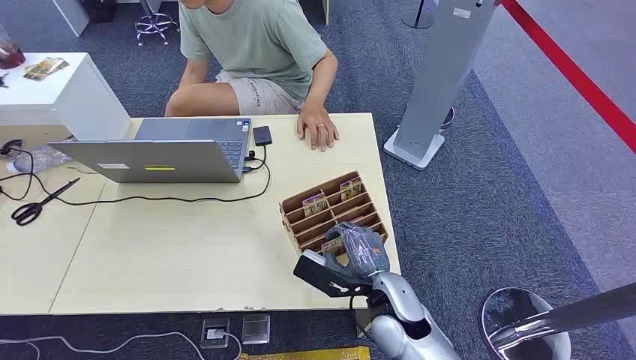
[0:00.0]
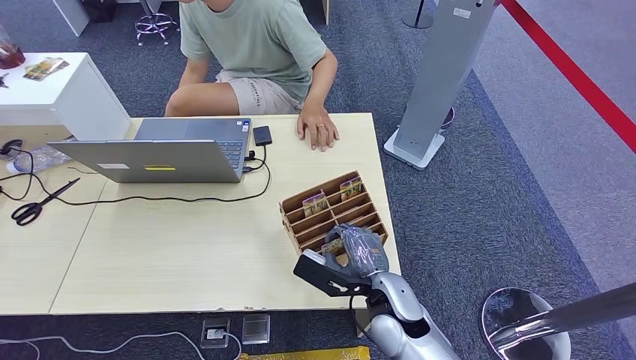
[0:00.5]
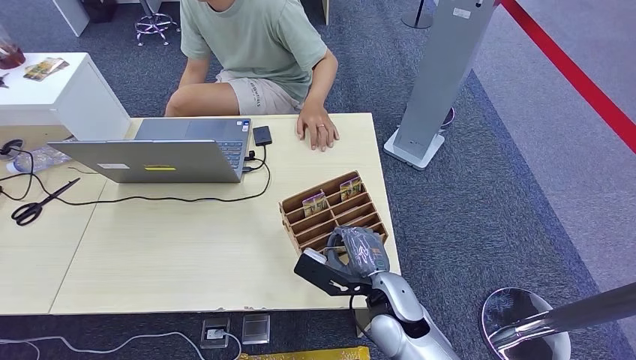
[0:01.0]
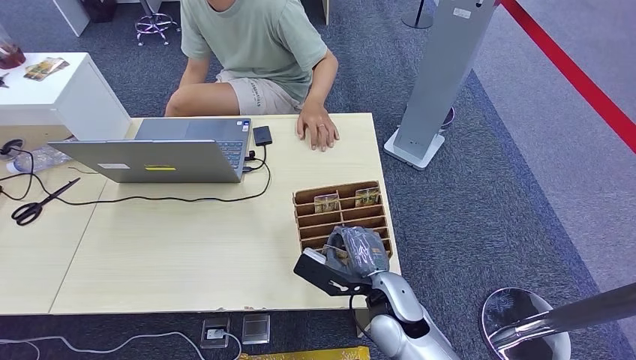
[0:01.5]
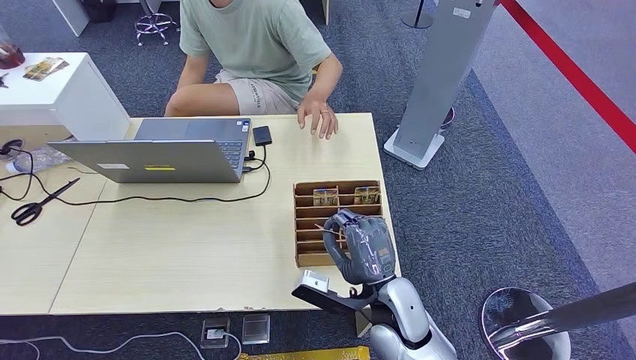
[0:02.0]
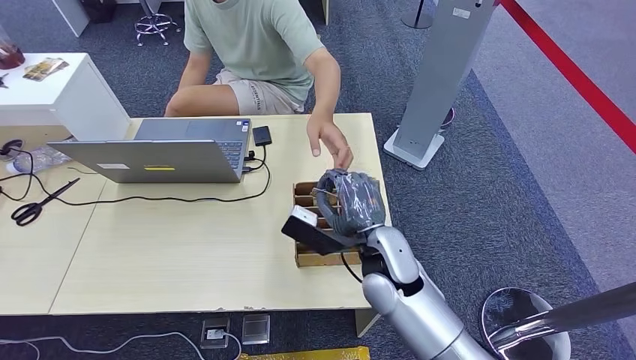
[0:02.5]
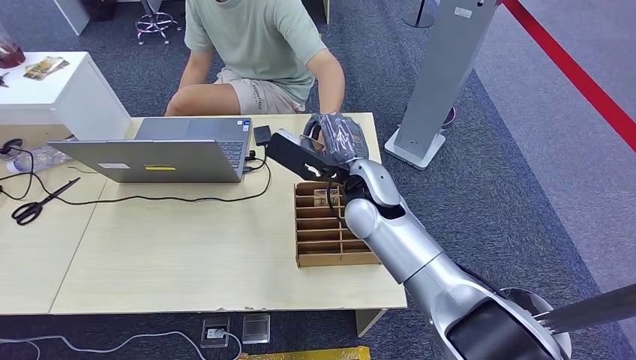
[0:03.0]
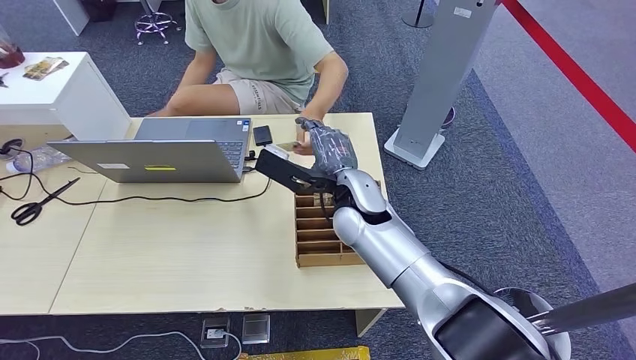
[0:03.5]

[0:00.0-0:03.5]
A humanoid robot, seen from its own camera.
Step, 0:00.0 to 0:02.0: Pick up the room card from the card holder.
Step, 0:03.0 to 0:03.5: Hand the room card to the target.
0:02.0 to 0:03.5: The right hand shifts approximately 20 cm forward and upward.

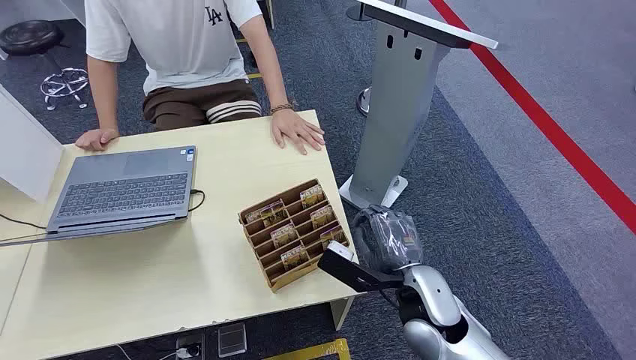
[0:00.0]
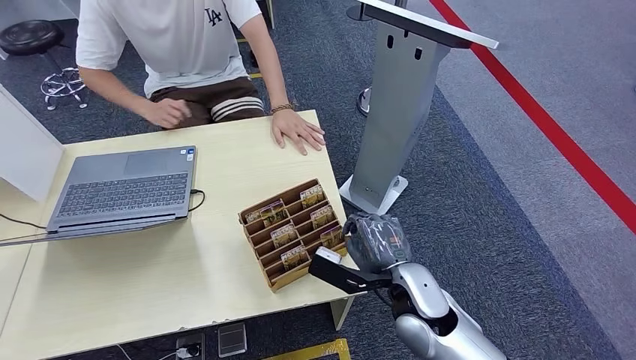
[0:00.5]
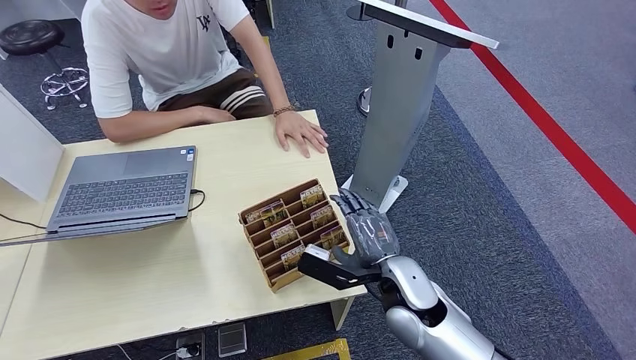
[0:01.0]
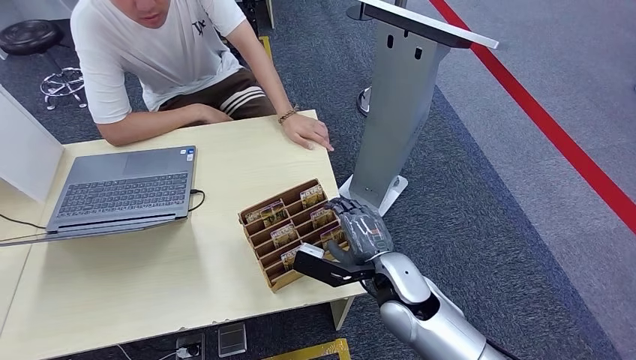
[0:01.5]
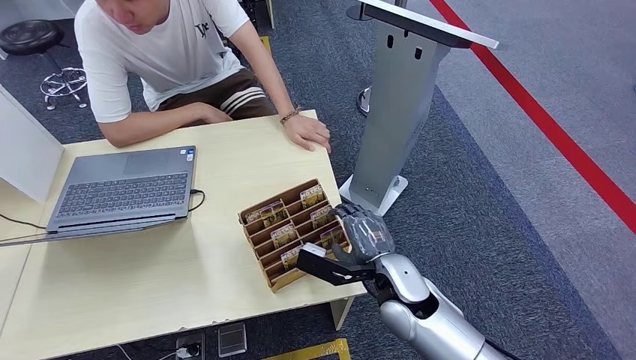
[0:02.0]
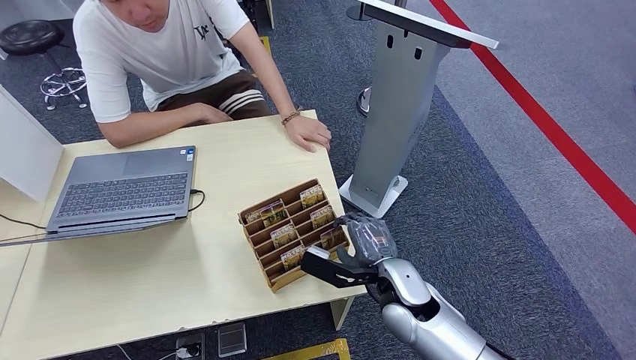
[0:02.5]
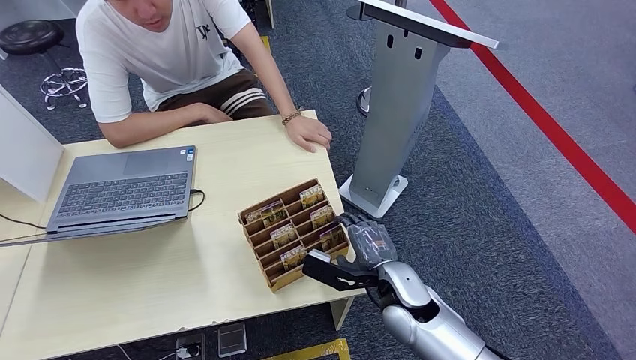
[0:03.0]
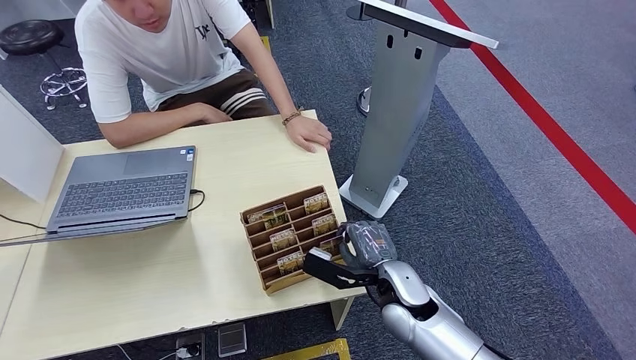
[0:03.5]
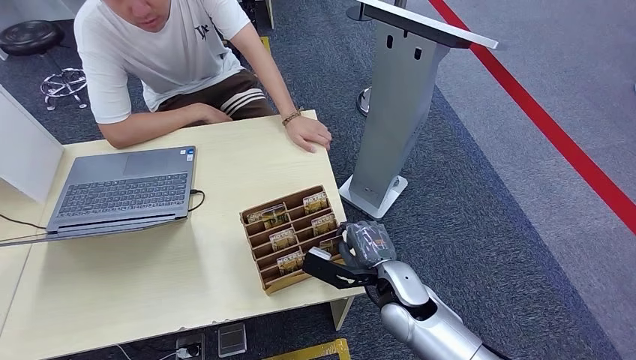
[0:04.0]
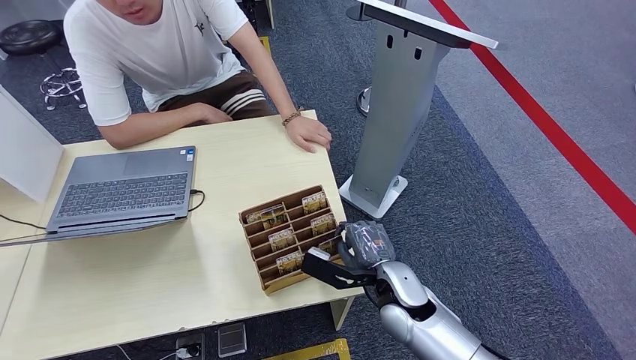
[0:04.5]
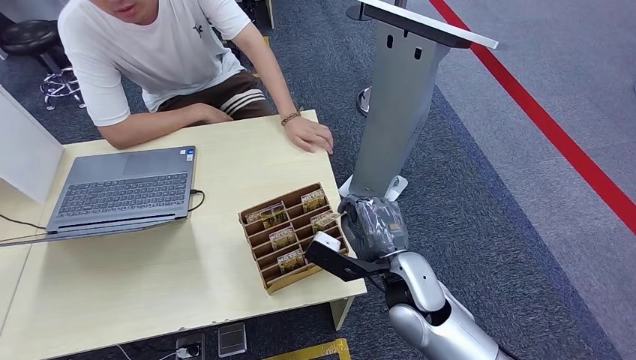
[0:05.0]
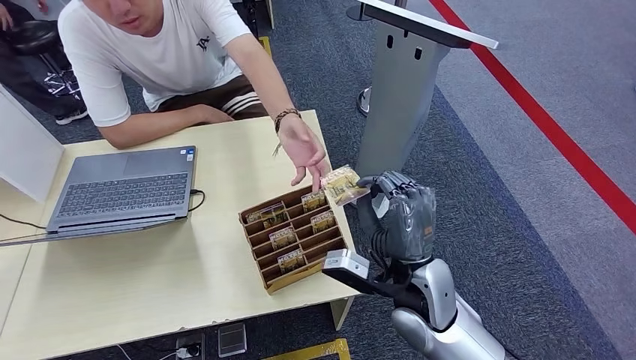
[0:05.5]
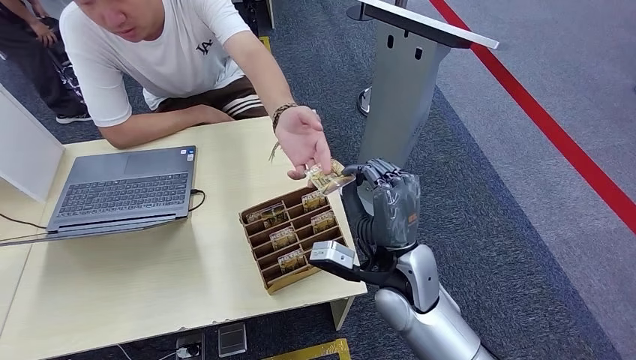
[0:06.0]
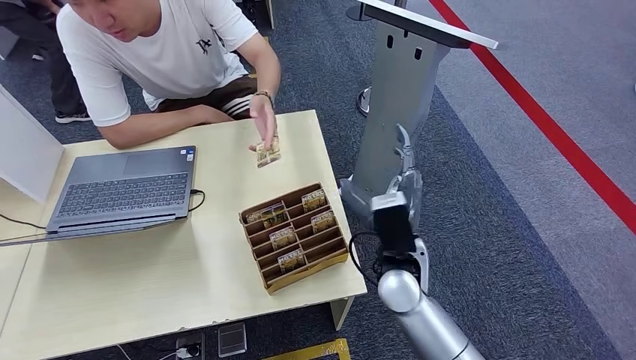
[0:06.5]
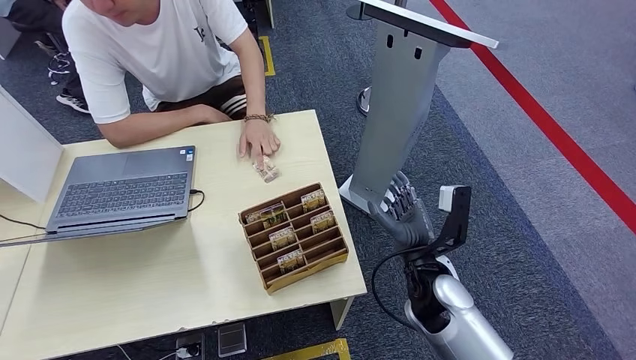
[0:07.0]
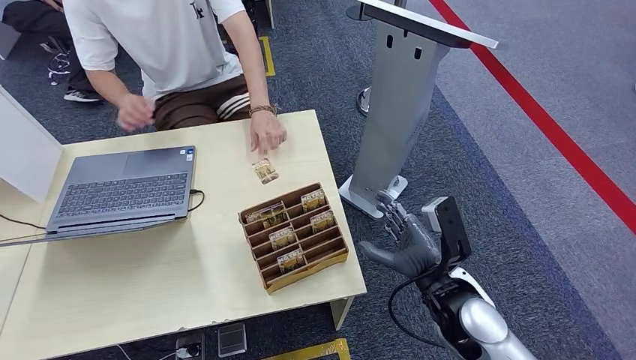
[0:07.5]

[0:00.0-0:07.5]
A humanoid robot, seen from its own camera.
Step, 0:00.0 to 0:05.0: Pick up the room card from the card holder.
Step, 0:05.5 to 0:07.5: Hand the room card to the target.
0:02.0 to 0:04.0: The hands make only small movements.
0:04.0 to 0:05.5: The right hand goes some 10 cm upward.
0:05.5 to 0:07.5: The right hand heads to the right, covering approximately 5 cm.
